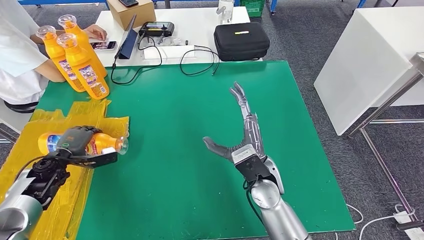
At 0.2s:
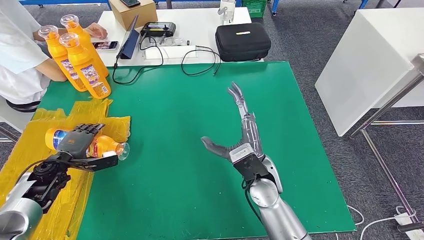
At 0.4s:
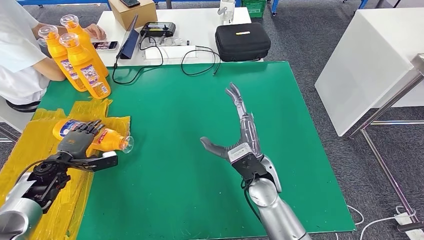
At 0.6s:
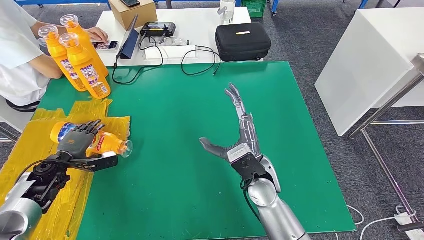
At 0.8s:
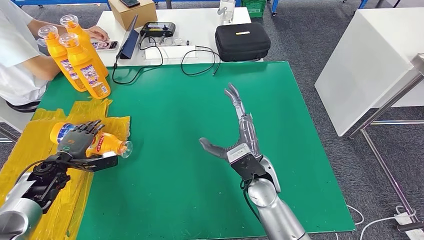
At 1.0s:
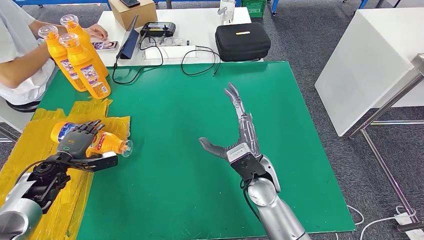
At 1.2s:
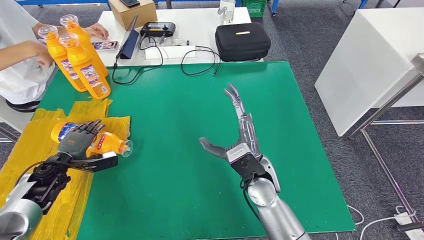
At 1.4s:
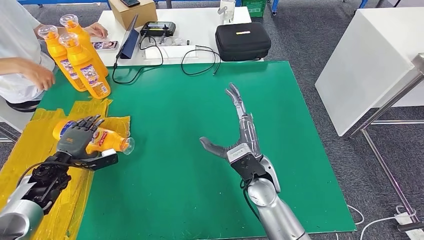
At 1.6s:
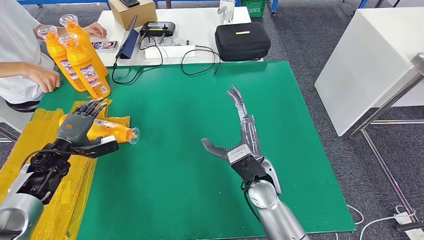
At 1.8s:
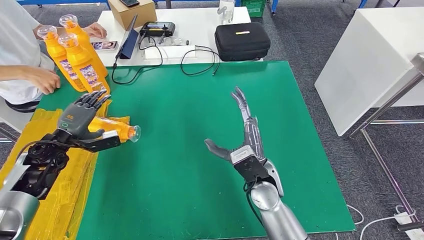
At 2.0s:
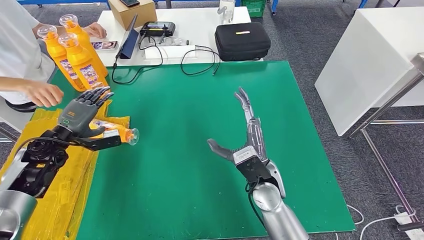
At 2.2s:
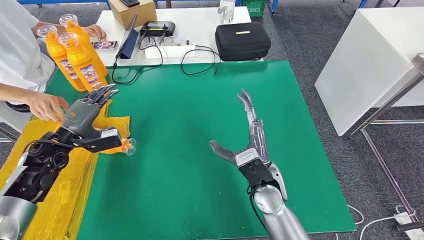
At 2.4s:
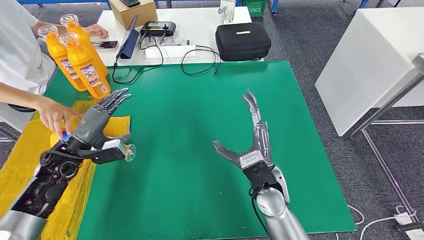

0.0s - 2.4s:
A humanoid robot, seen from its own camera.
Step, 0.0s - 2.4s: Flip the fast-moving consumer goods bottle to the front side.
0.0s - 1.2s: The two hands keep their place.
1.2s - 2.4s: The left hand goes roughly 10 cm upward and to the right.

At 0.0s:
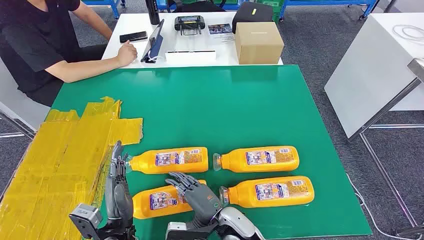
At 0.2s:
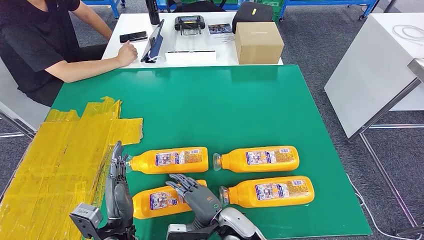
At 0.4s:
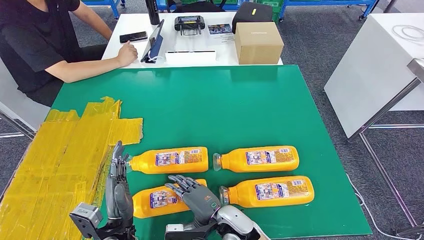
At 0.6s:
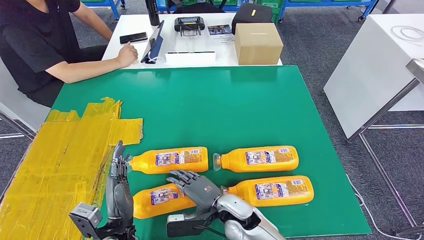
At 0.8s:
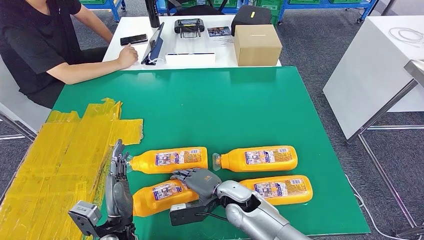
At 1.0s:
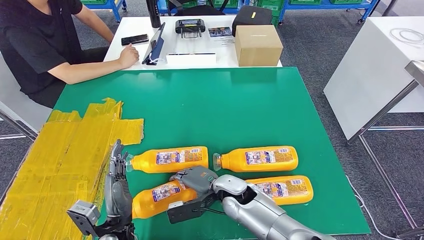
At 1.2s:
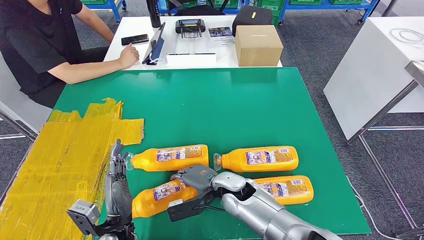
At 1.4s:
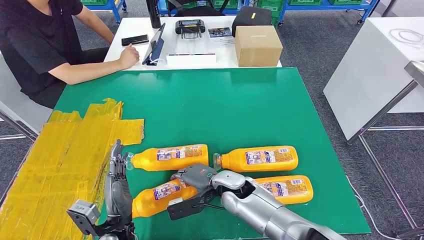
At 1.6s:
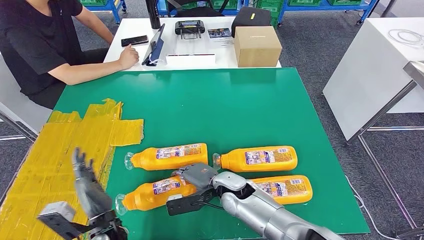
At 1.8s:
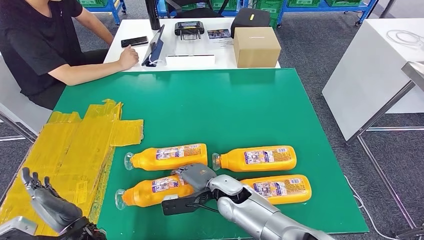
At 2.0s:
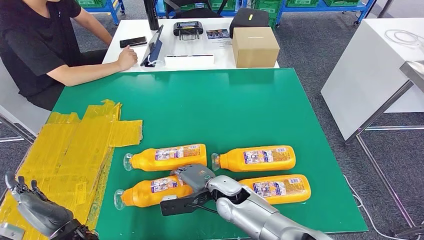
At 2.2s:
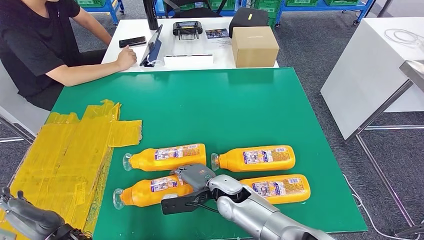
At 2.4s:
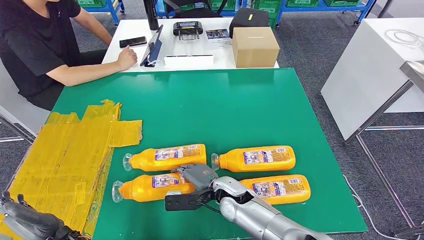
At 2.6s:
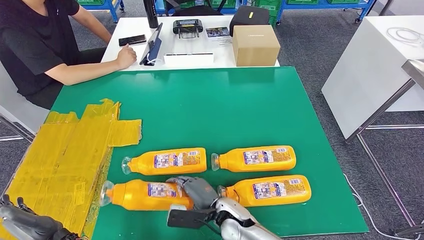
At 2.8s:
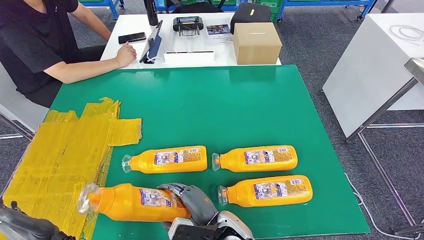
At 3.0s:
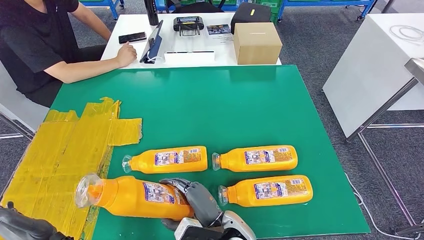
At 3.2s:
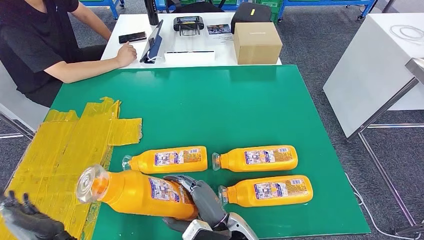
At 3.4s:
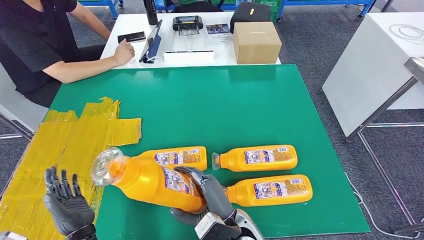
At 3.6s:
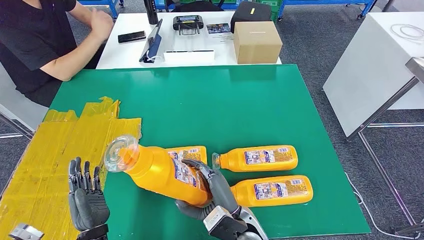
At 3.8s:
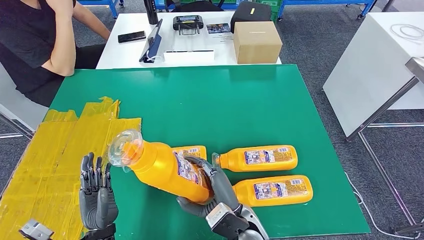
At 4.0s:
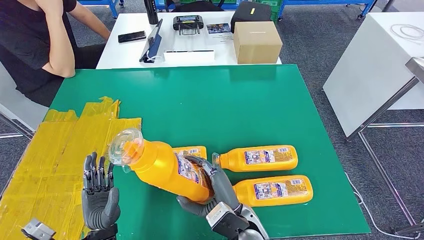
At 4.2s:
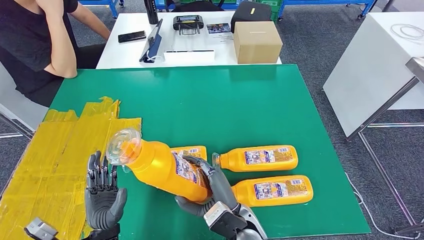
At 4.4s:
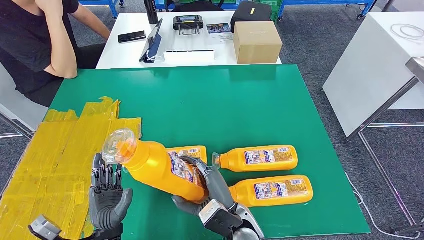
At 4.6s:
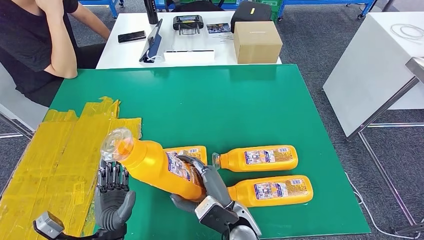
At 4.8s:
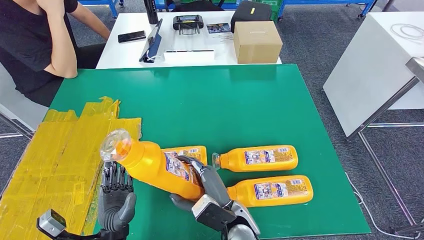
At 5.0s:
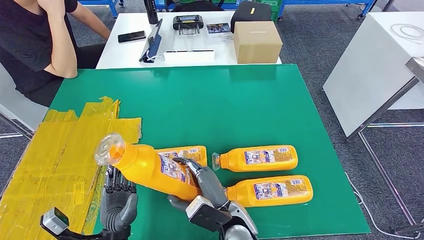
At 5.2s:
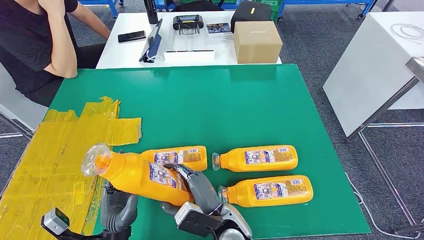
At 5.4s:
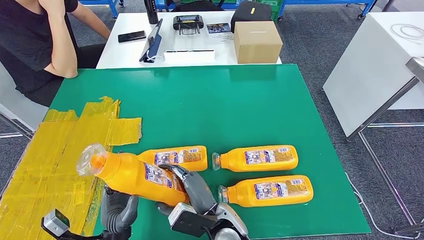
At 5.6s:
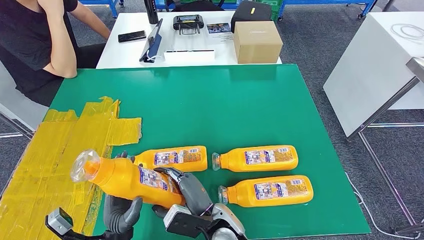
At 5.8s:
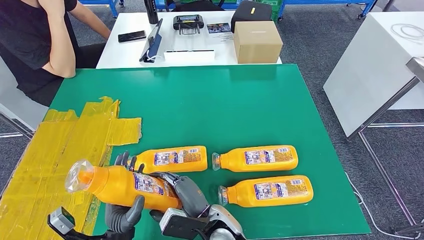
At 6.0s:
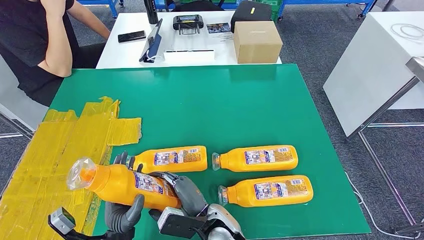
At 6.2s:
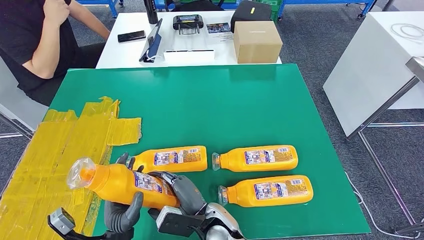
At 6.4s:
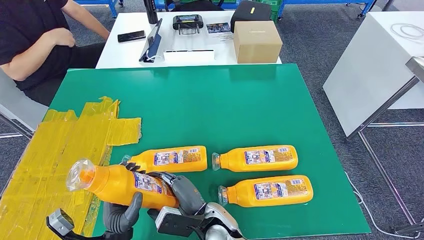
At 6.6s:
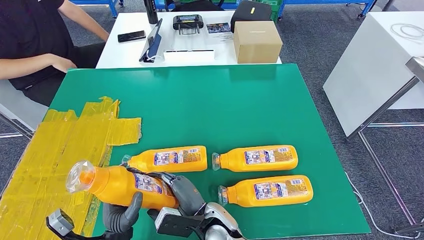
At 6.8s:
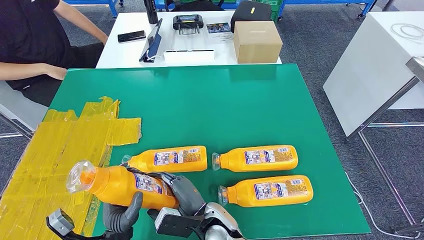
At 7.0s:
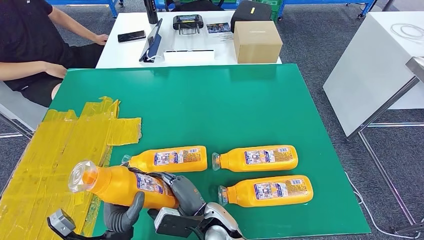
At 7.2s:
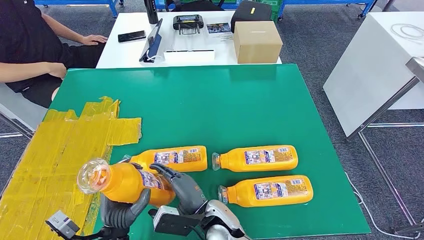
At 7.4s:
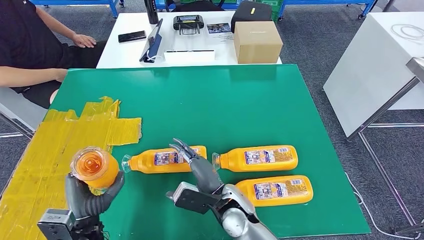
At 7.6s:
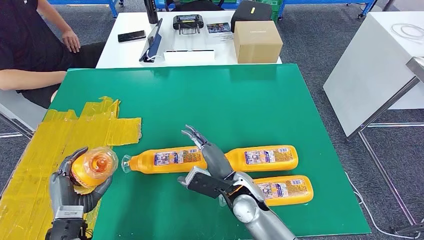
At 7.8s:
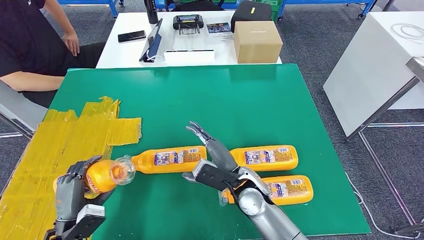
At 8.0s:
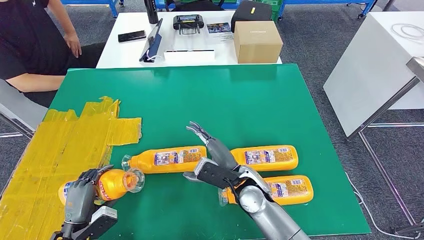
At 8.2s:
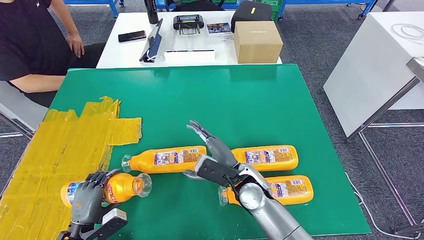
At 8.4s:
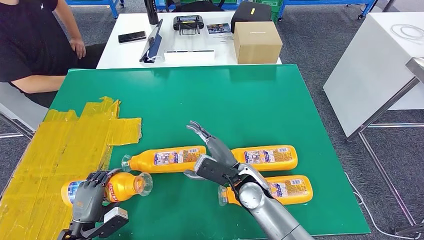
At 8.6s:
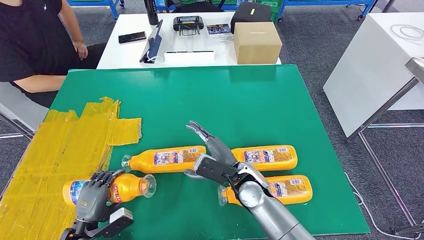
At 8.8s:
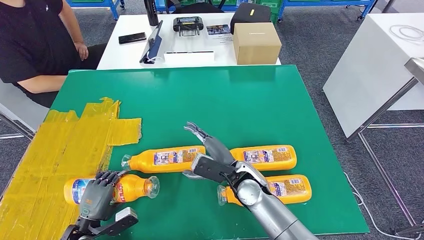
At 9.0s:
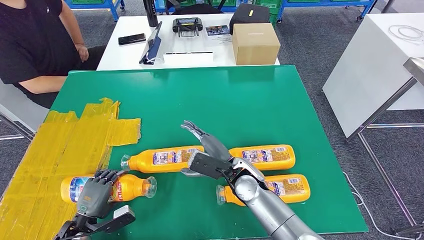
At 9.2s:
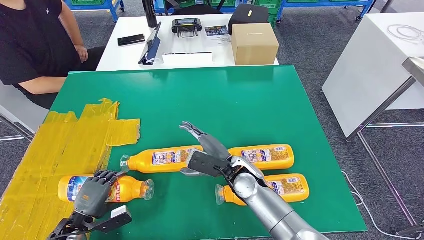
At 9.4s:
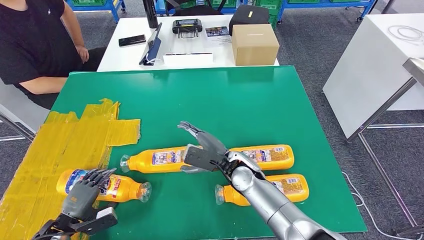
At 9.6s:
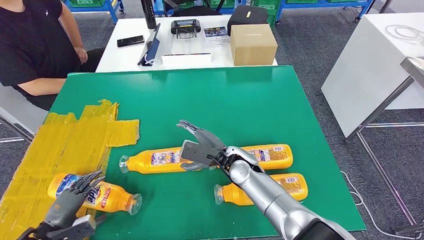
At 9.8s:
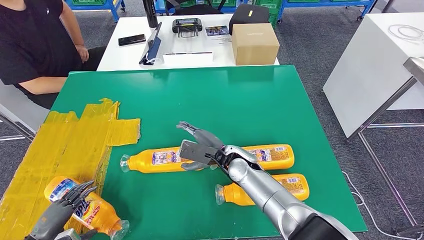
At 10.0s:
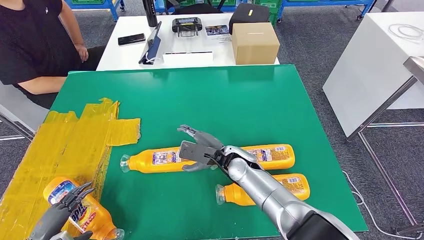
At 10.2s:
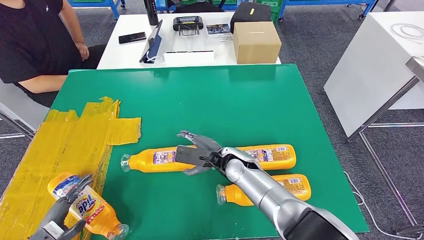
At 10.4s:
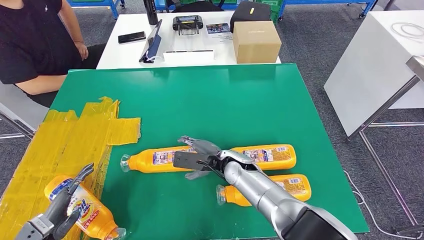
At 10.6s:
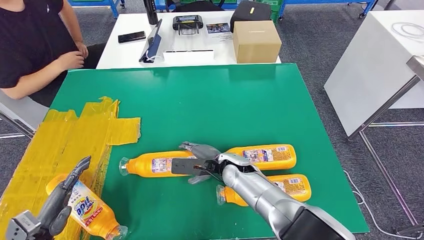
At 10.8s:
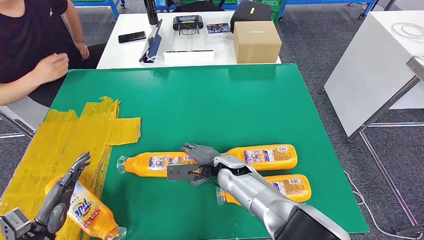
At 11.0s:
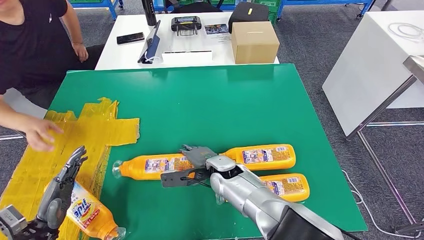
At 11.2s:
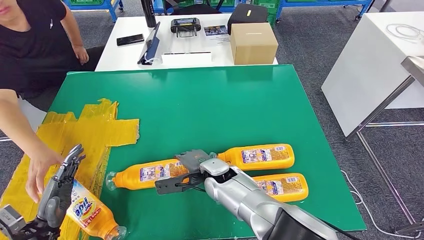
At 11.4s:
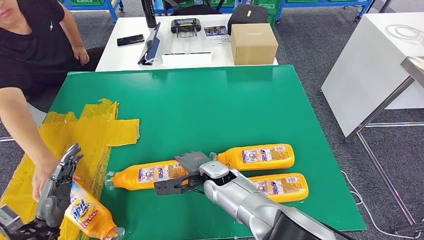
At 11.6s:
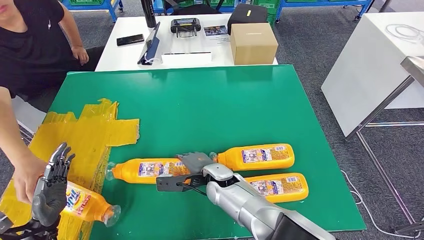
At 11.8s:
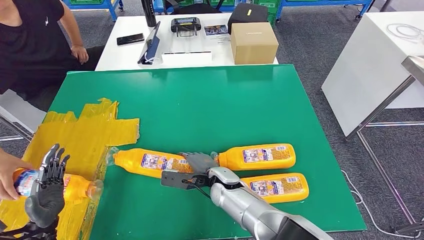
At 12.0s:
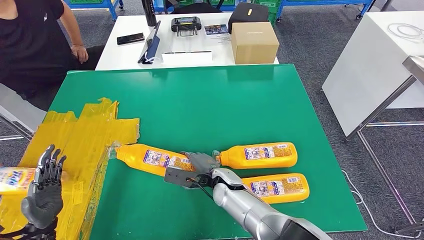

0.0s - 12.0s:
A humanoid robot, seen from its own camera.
Step, 0.0s - 3.8s: Take the fast-moving consumer goods bottle from the table.
Step, 6.4s - 10.6s: Flip the fast-moving consumer goods bottle to the front side.
3.0s - 4.4s: The left hand heads to the right, covering approximately 10 cm.
4.4s - 6.0s: The right hand goes some 5 cm to the left.
6.0s - 7.6s: The right hand moves forward and to the right, approximately 10 cm. Meanwhile the left hand moves to the left, some 10 cm.
9.0s - 10.4s: The left hand goes roughly 10 cm to the left and upward. Meanwhile the right hand moves roughly 5 cm.

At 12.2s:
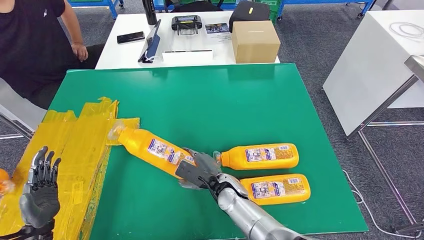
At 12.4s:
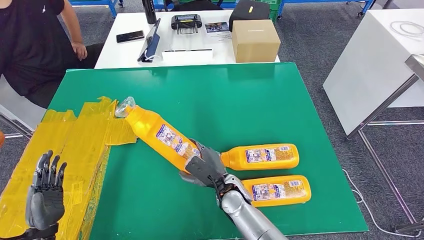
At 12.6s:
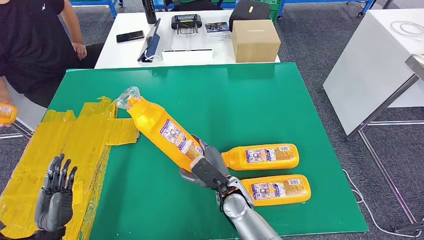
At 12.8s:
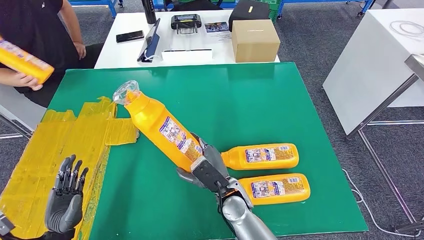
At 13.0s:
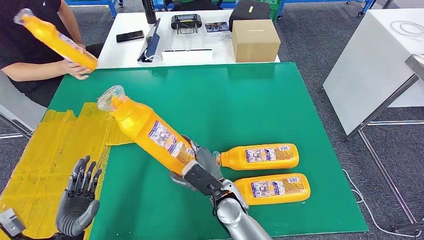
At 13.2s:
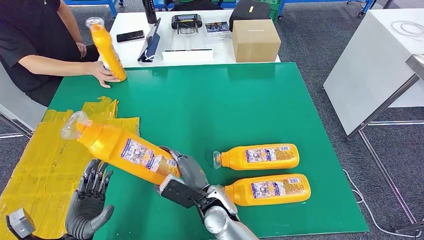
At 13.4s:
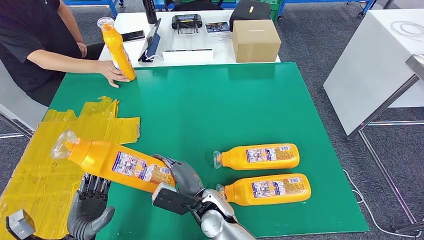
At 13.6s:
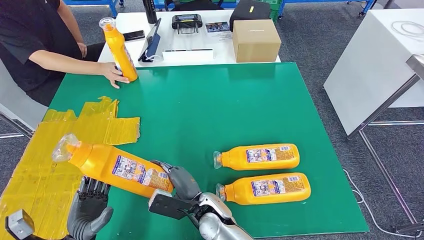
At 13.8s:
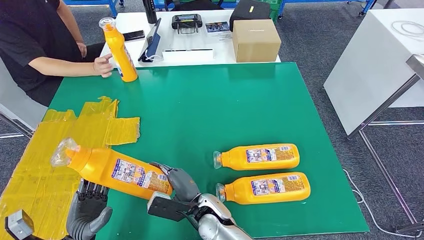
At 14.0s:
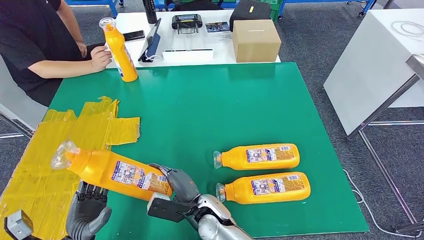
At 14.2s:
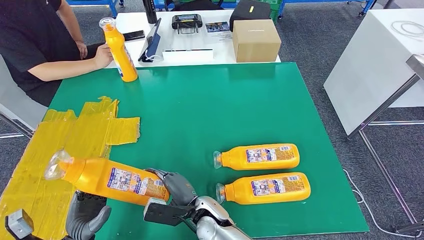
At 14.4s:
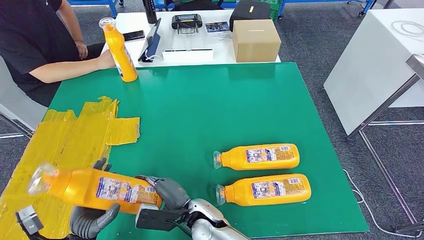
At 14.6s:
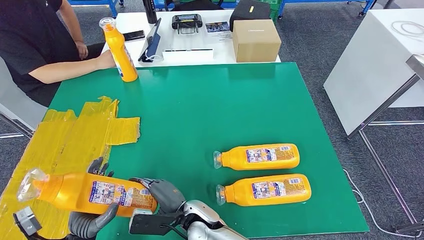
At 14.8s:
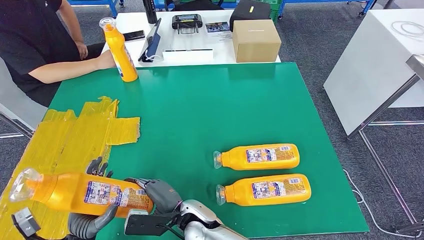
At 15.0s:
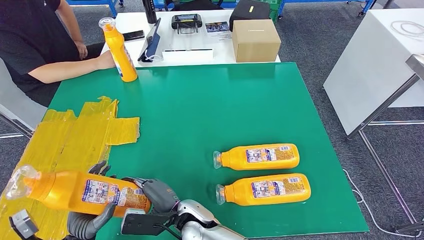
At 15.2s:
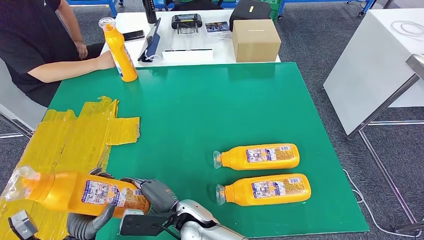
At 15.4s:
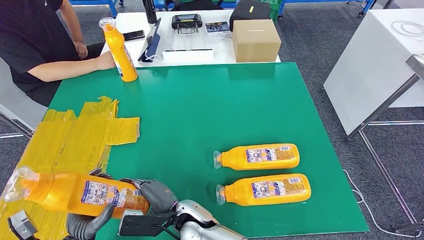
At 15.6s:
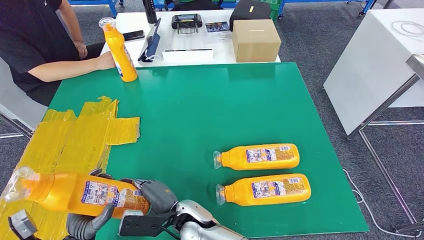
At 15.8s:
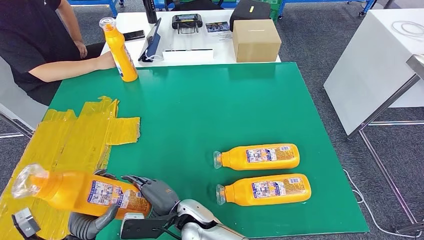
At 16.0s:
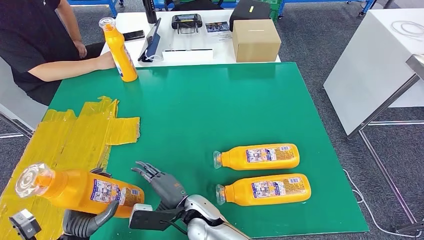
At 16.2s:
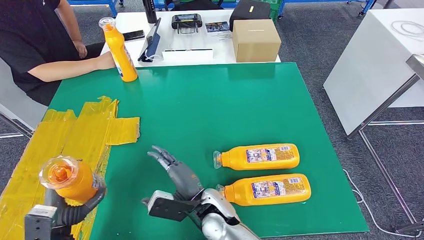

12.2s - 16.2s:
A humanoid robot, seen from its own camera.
Step, 12.2s - 14.2s: Pick up the fast-moving consumer goods bottle from the table.
13.6s - 14.8s: The hands move only a little.
14.8s - 16.2s: The right hand shifts by roughly 5 cm.
